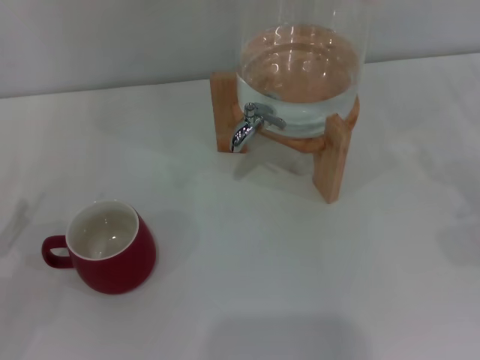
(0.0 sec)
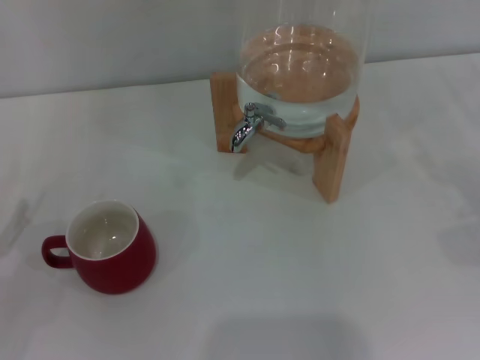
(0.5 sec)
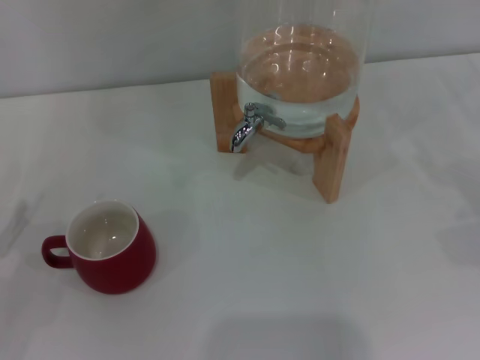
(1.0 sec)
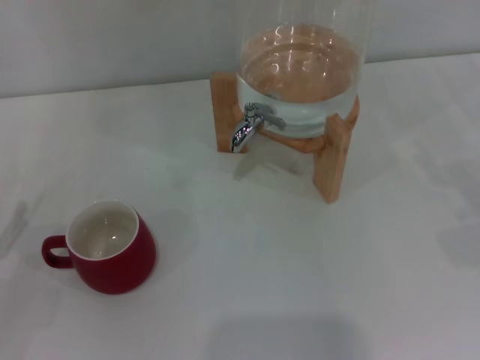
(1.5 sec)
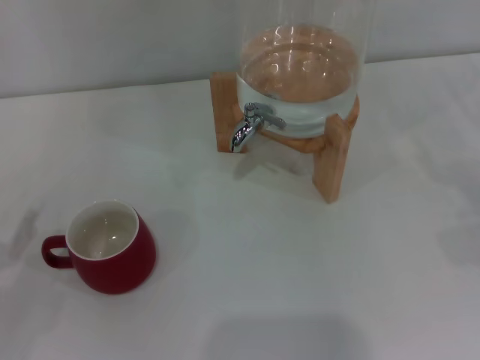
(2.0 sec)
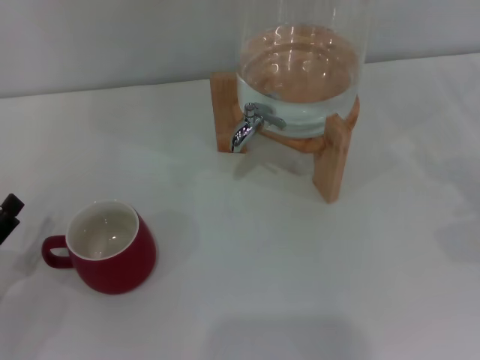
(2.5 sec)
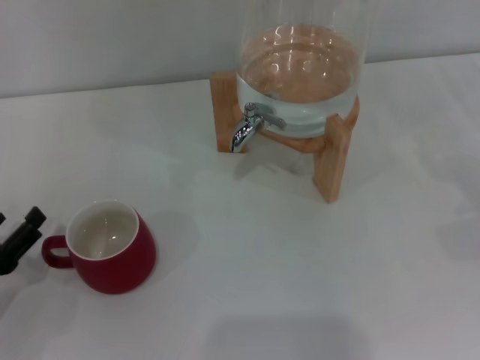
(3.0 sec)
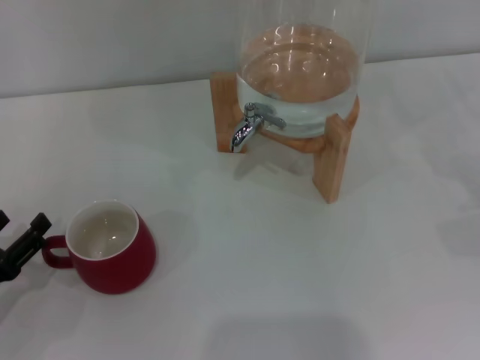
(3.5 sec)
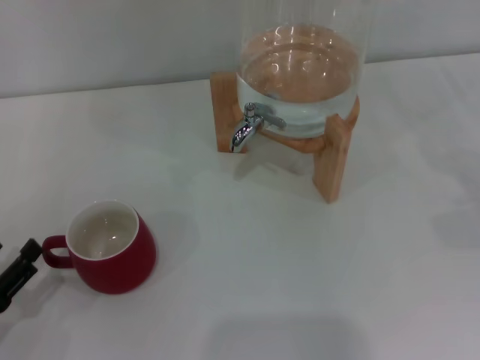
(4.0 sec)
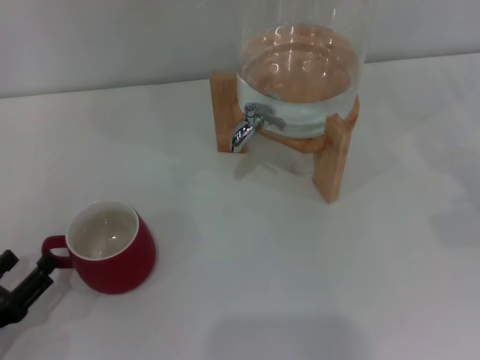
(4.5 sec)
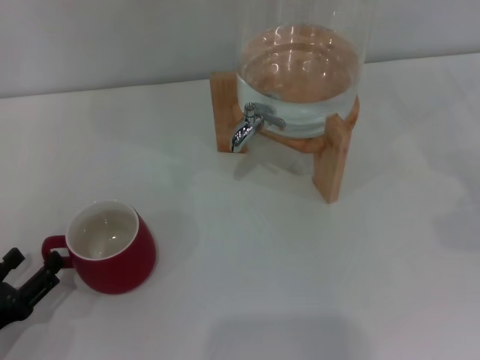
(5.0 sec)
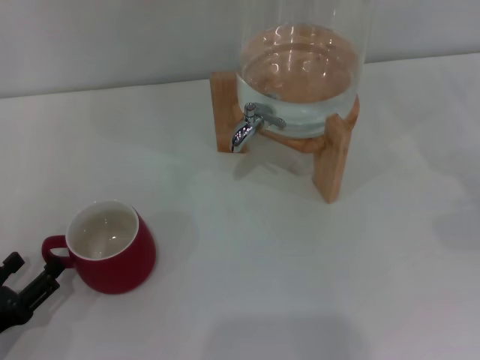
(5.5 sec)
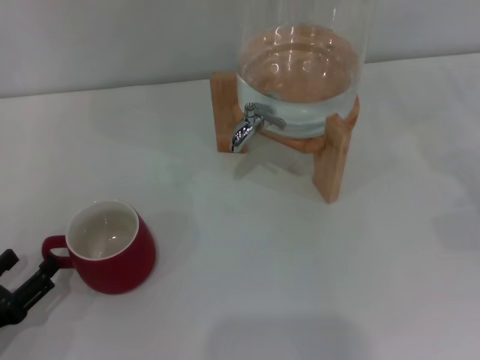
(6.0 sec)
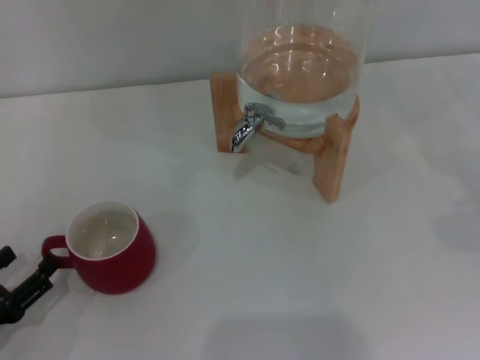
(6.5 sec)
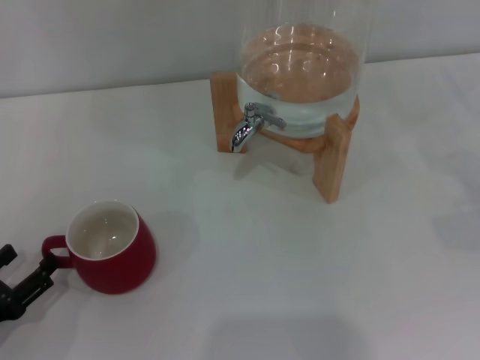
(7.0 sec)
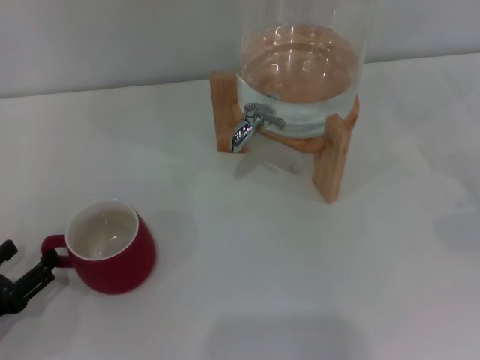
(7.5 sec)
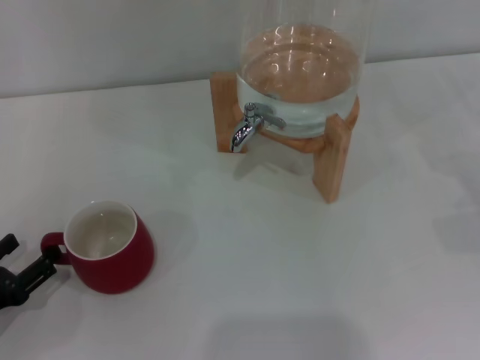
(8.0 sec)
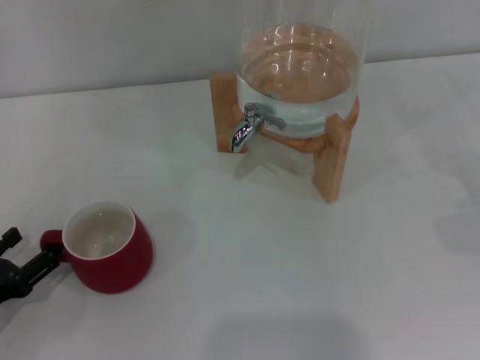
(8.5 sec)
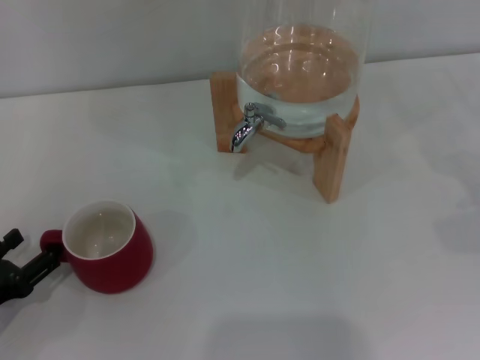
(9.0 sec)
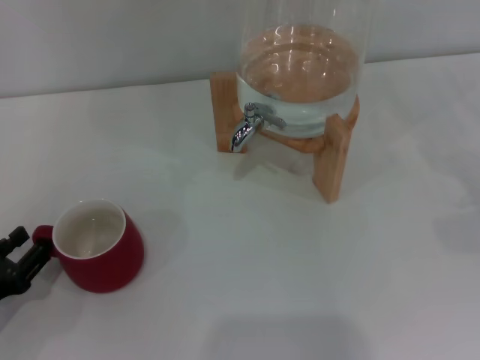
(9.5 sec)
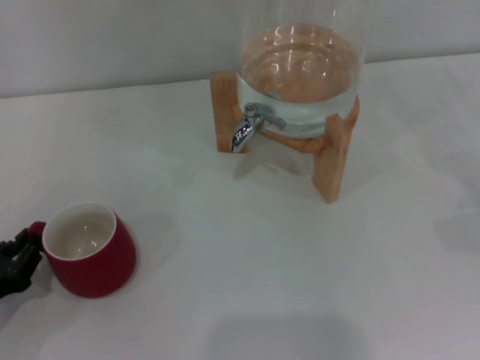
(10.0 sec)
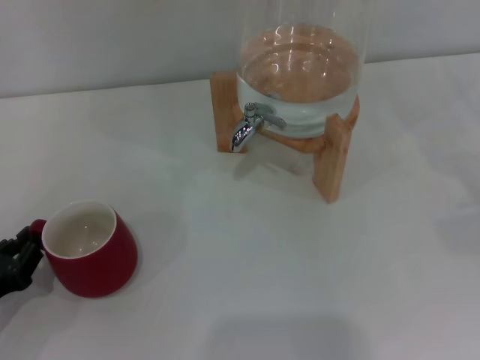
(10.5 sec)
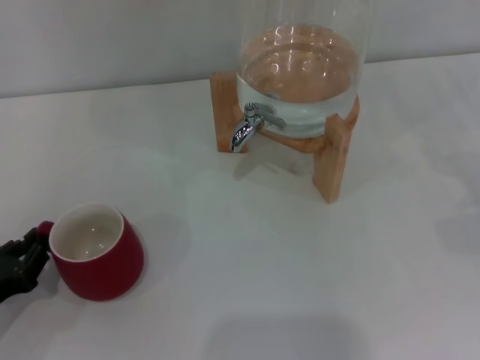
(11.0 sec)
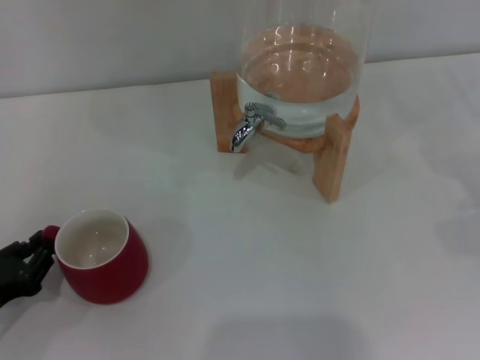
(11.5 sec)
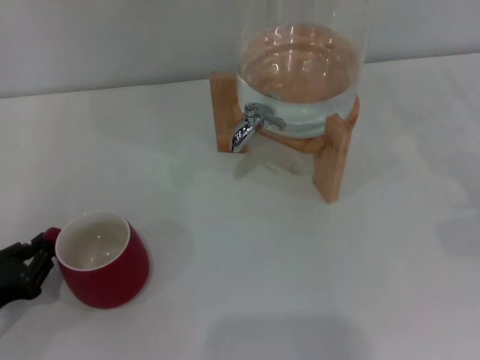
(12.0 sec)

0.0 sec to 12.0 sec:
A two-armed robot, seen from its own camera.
Task of the whole recording: the left gripper pick up the red cup and place it horizontally under the faucet, the right gripper turn on the faucet to fill the cup, and then turn off the faucet.
0.0 sec to 2.0 sec: The two grippers keep their place.
2.0 sec to 4.0 sec: The left gripper ends up roughly 5 cm from where it was.
4.0 sec to 8.0 sec: The grippers stay close to where they were, moving slightly.
8.0 sec to 10.0 sec: The left gripper closes its fingers.
10.0 sec to 12.0 sec: The grippers stay close to where they were, moving slightly.

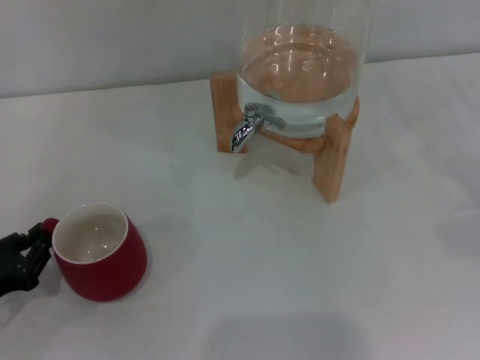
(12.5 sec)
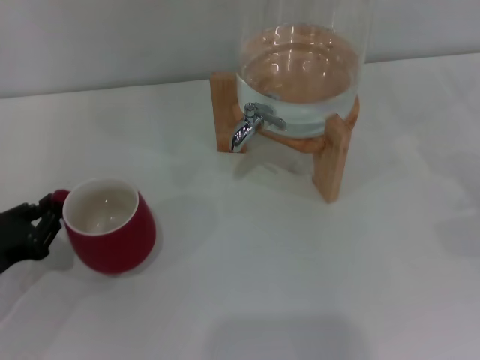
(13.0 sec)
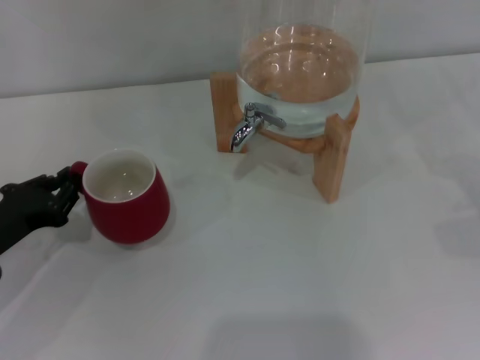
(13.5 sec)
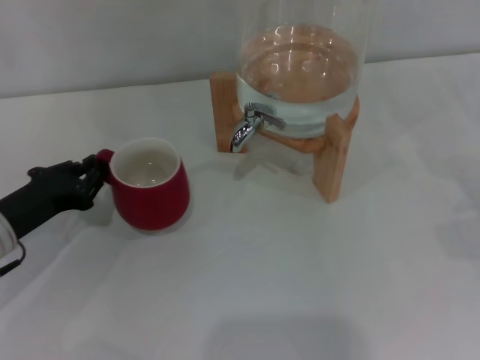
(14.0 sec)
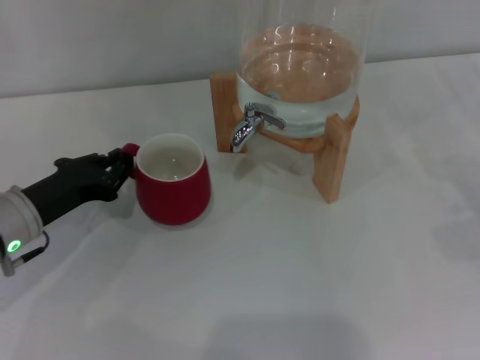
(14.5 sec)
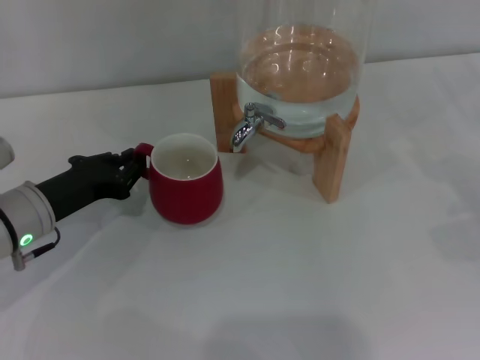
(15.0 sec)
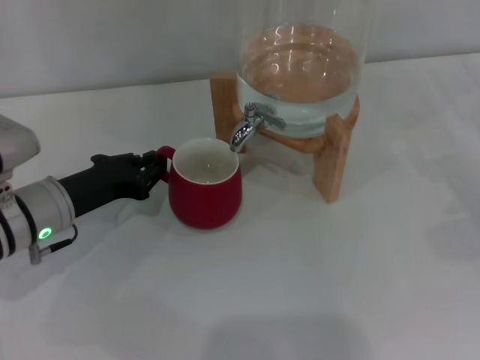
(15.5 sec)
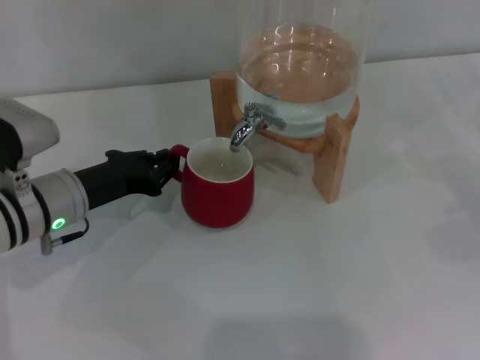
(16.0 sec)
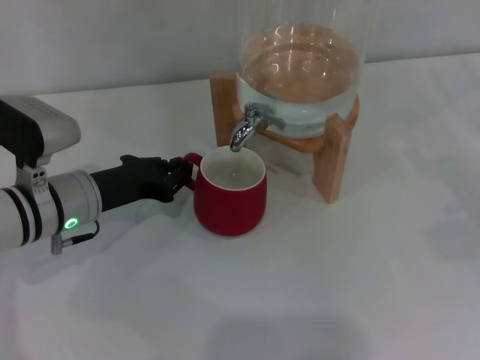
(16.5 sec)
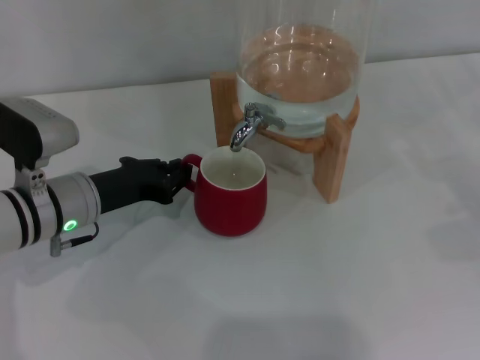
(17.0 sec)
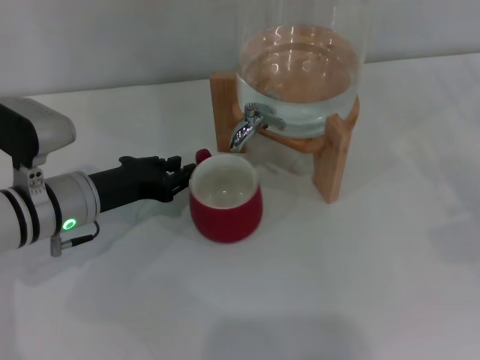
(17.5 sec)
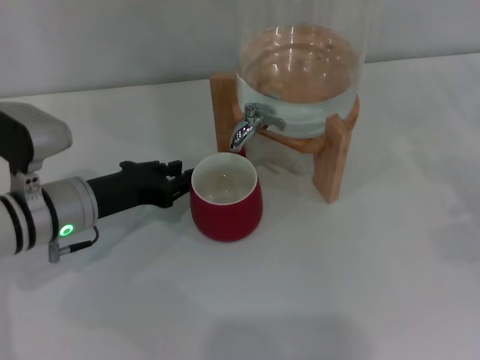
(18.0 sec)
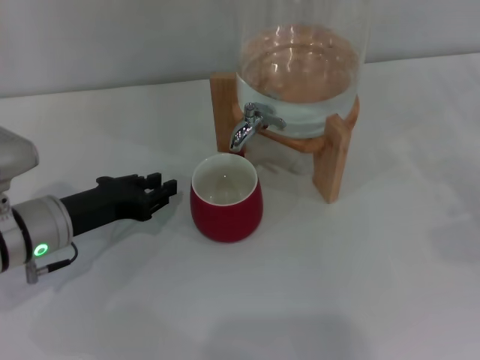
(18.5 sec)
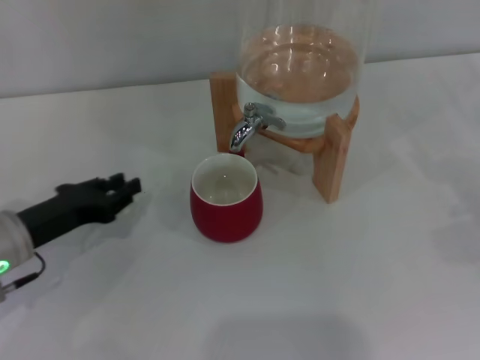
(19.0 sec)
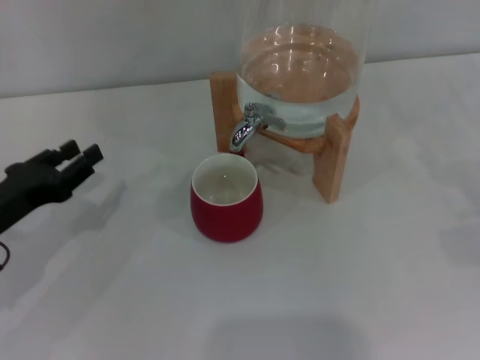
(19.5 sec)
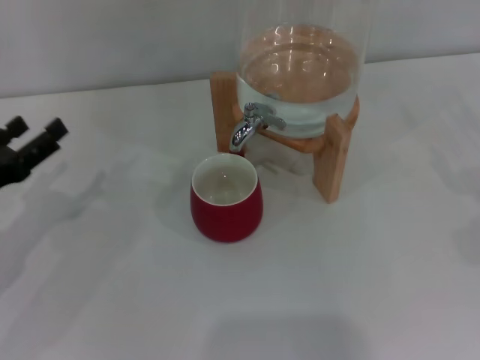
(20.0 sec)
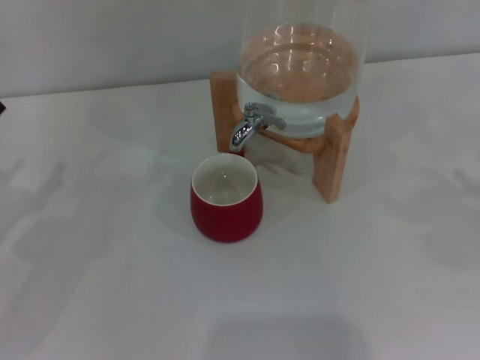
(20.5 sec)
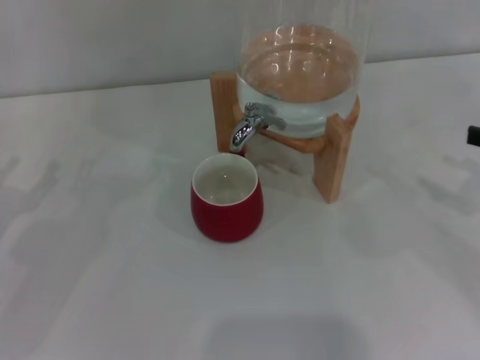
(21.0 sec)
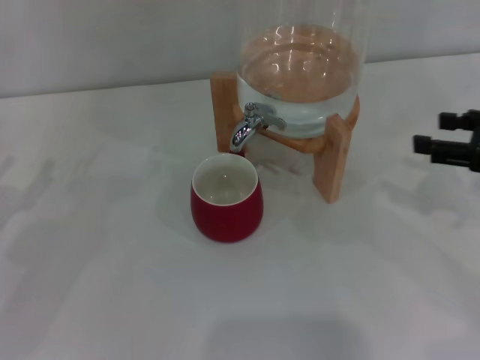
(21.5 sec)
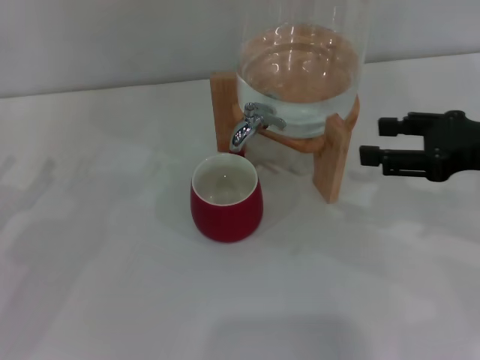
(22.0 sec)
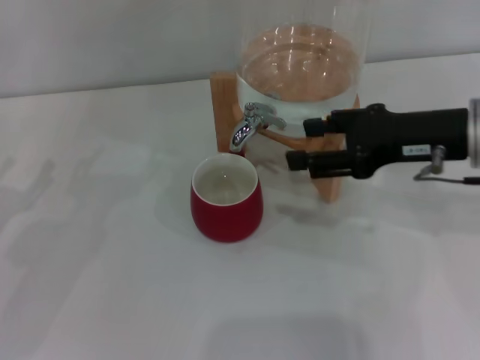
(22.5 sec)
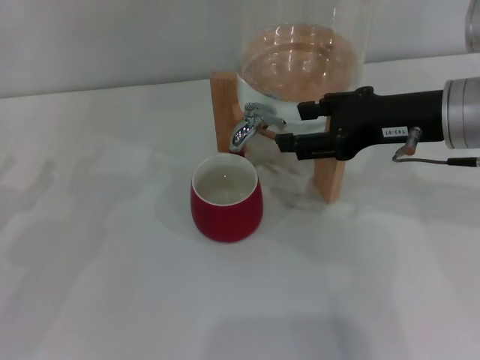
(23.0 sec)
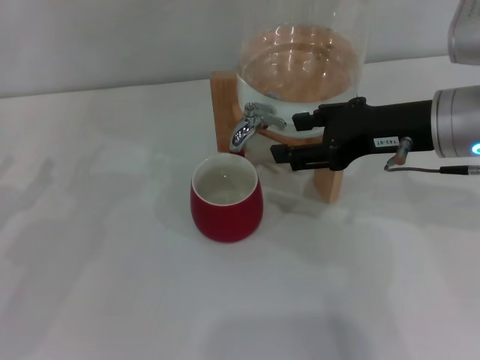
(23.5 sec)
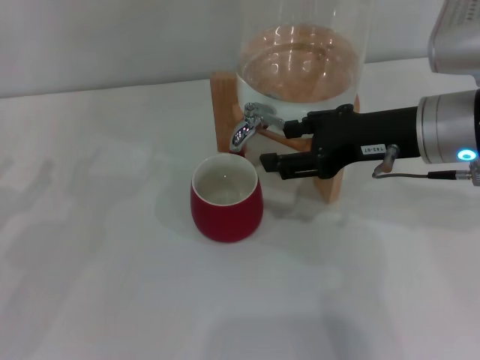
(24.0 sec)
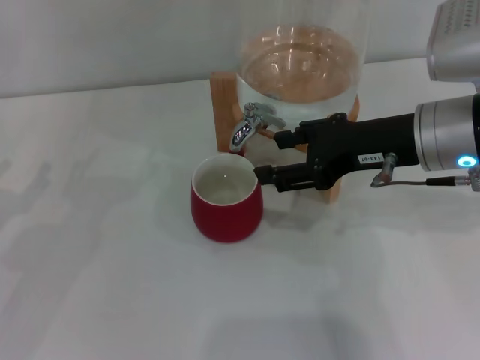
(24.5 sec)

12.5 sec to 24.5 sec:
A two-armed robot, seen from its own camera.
Task of the whole recording: the left gripper pick up the red cup and place it horizontally under the faucet, the right gripper turn on the faucet to fill the cup, and then turn off the faucet.
Step, 12.5 sec to 18.0 sec: Move the cup beneath the water dispenser nozzle with the left gripper.
12.5 sec to 14.5 sec: The left gripper heads forward and to the right, covering roughly 15 cm.
14.5 sec to 16.5 sec: The left gripper heads to the right, covering approximately 5 cm.
16.5 sec to 18.5 sec: The grippers move only a little.
18.5 sec to 20.5 sec: The left gripper shifts about 10 cm to the left, and opens.
20.5 sec to 22.5 sec: The right gripper goes approximately 20 cm to the left.
22.5 sec to 24.5 sec: The grippers make only small movements.

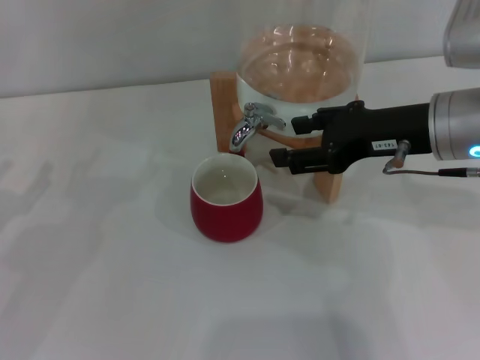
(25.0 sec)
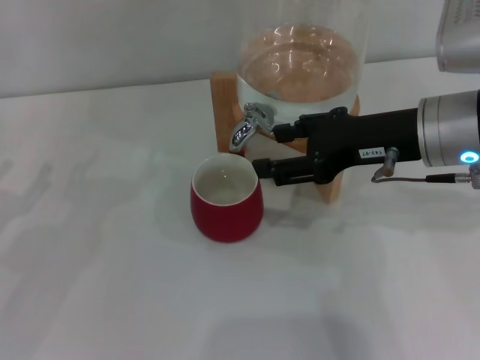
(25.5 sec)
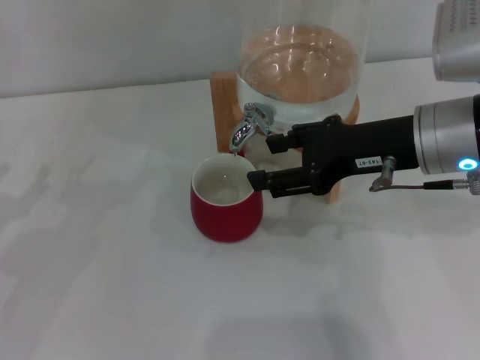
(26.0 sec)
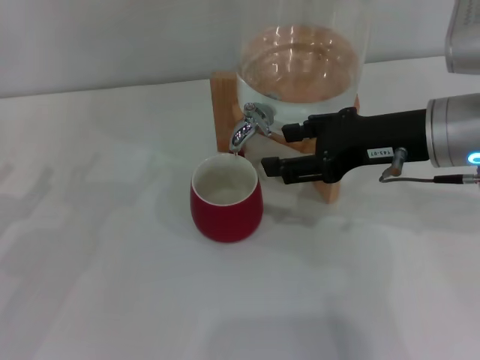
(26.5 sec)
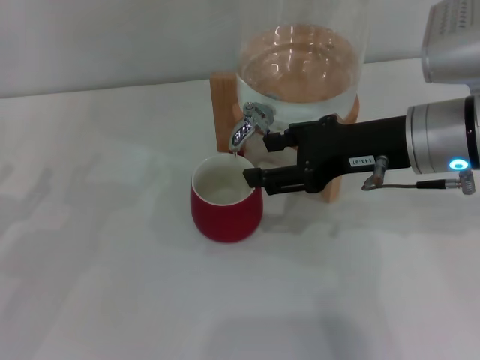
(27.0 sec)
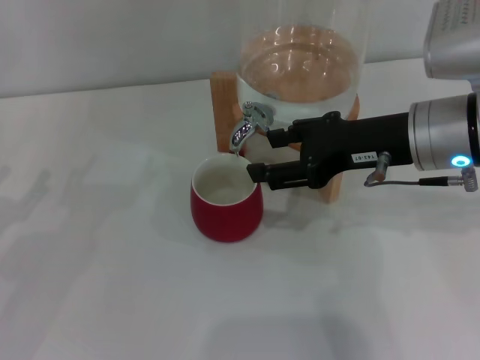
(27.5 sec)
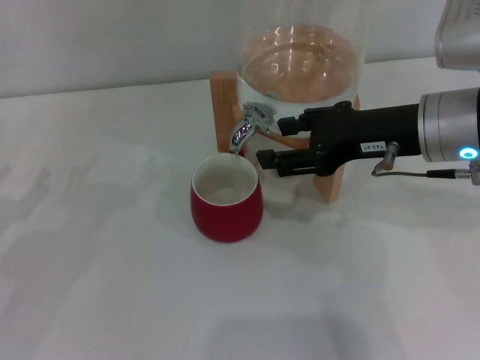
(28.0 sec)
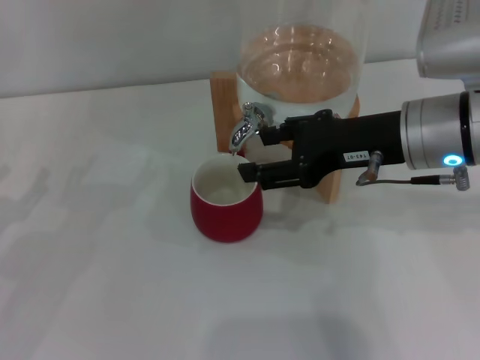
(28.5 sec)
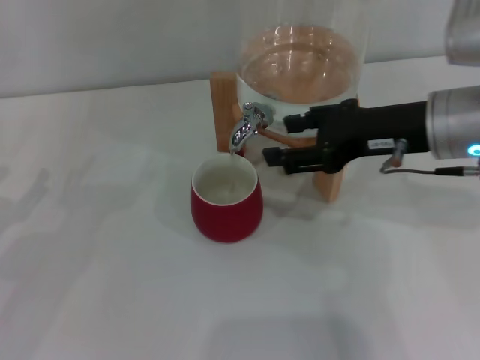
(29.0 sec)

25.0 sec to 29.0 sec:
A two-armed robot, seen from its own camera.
Task of the whole recording: the left gripper pick up the red cup and place it horizontally under the faucet, the right gripper turn on the faucet to fill the cup, and then turn off the faucet.
Step, 25.0 sec to 28.5 sec: Open the dispenser valve and fill the cup with water with the right gripper.
25.0 sec to 29.0 sec: The grippers stay close to where they were, moving slightly.
